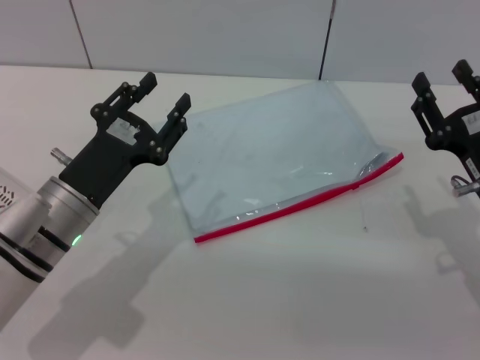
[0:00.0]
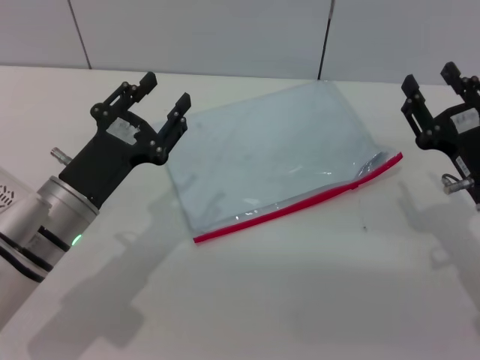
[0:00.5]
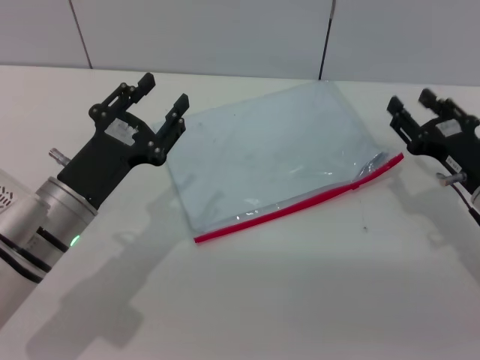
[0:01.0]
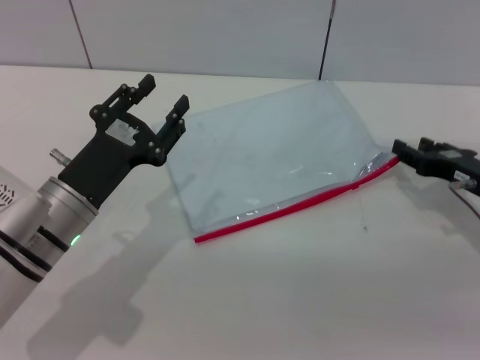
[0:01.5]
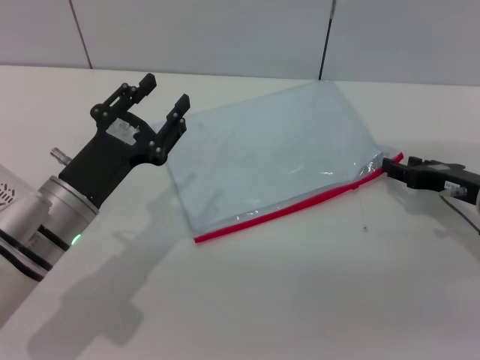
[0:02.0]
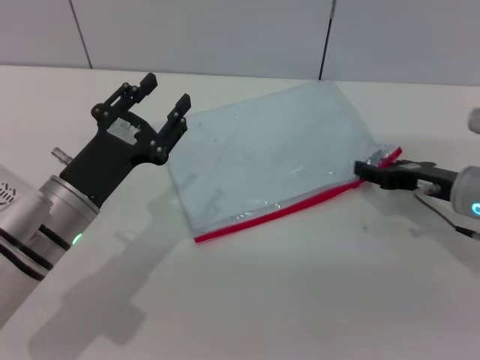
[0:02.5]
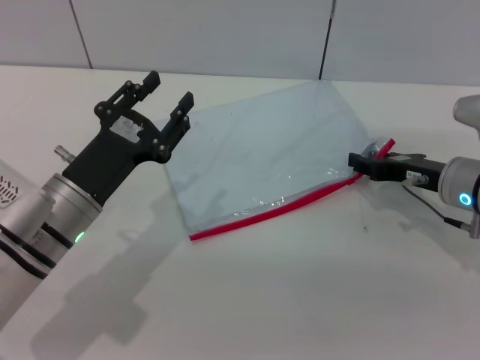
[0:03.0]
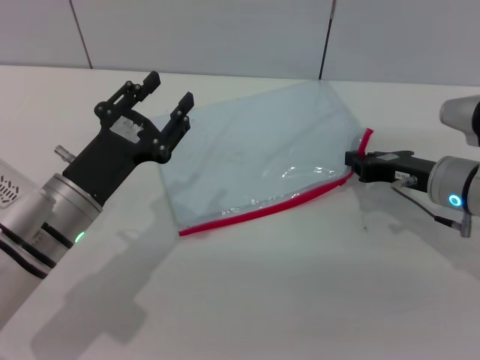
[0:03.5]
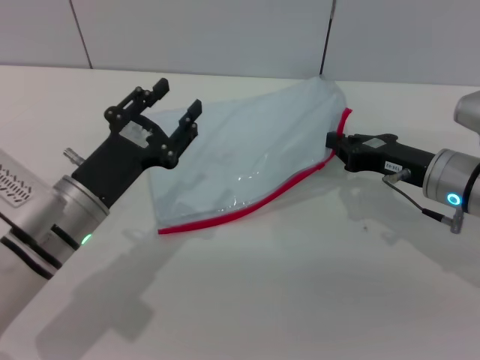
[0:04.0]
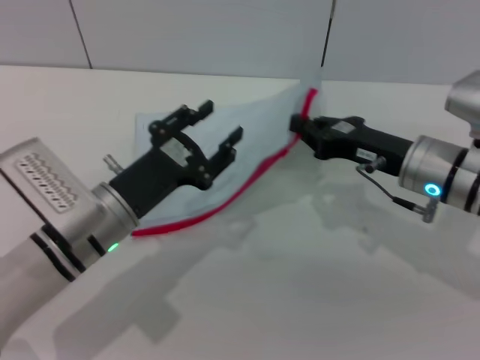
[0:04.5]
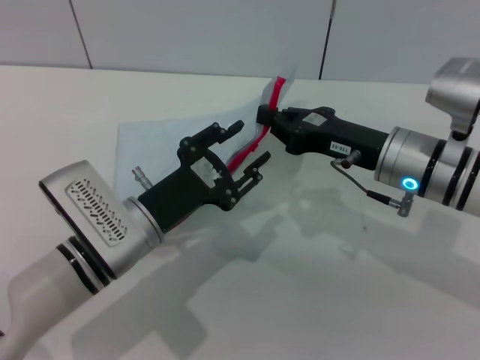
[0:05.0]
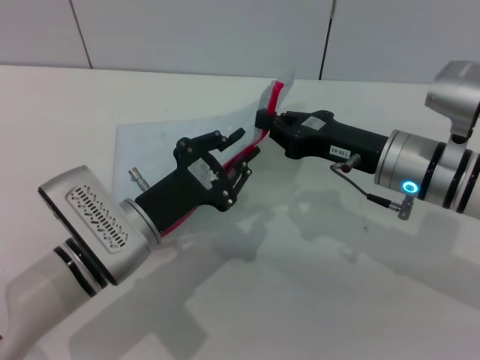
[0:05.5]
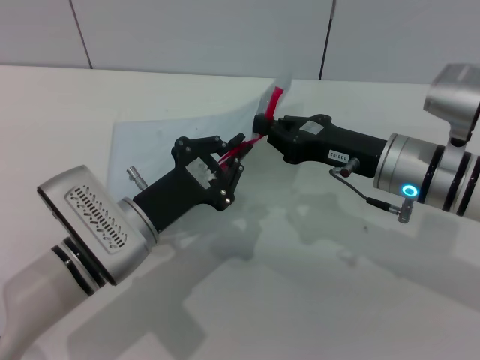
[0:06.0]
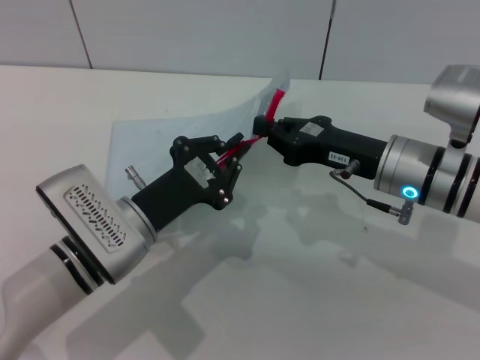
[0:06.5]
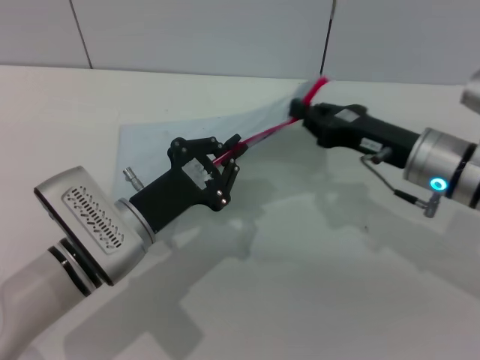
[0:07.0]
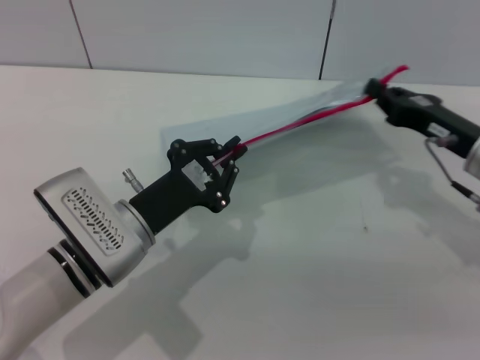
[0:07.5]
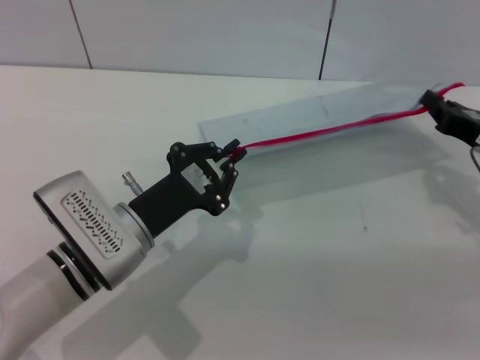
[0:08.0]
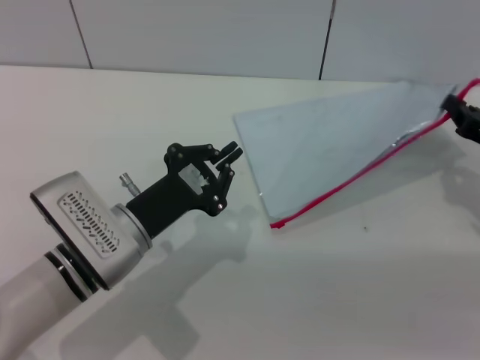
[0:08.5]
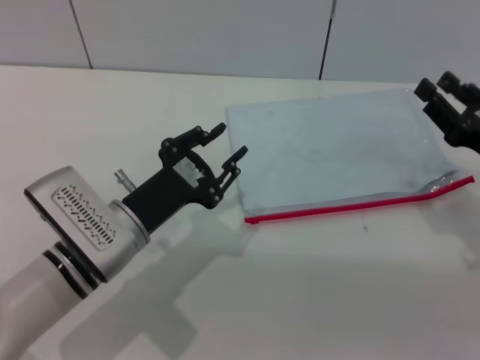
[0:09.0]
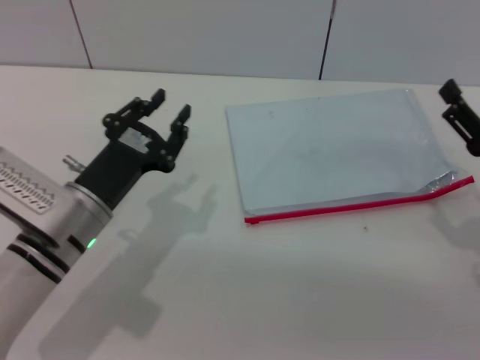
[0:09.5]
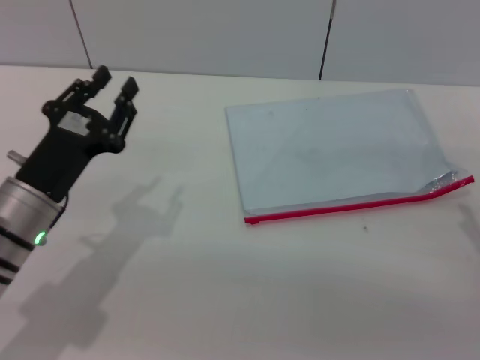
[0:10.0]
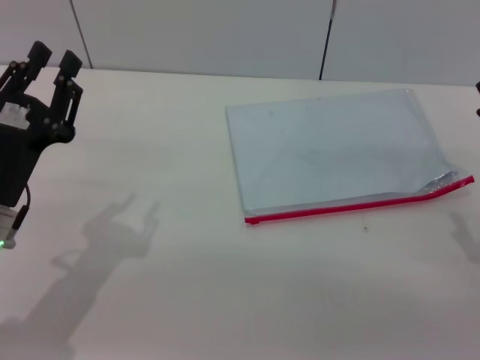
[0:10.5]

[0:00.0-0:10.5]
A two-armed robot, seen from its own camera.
Step, 0:00.0 to 0:04.0: Pick up the transparent plastic bag with the right gripper.
Step, 0:04.5 to 0:08.0: Pulling up the zipper on the transparent plastic bag with the left gripper to close it.
0:00.0 to 0:02.0: The right gripper heads forward, covering about 5 cm.
0:02.0 to 0:04.0: The right gripper shifts approximately 5 cm to the left, and closes up.
0:04.0 to 0:06.5: The left gripper closes, while the right gripper shifts approximately 5 cm to the left.
0:06.5 to 0:08.5: The right gripper shifts approximately 15 cm to the right.
0:08.5 to 0:10.5: The right gripper moves backward, some 10 cm, and opens its fingers. Meanwhile the left gripper travels to the left by about 10 cm, and opens its fingers.

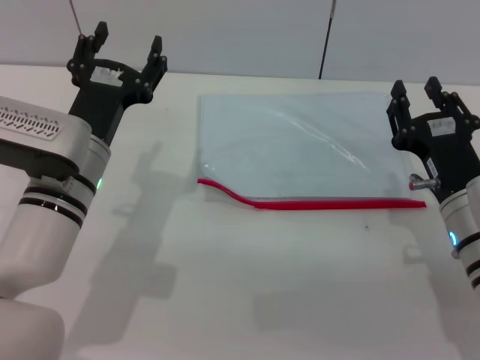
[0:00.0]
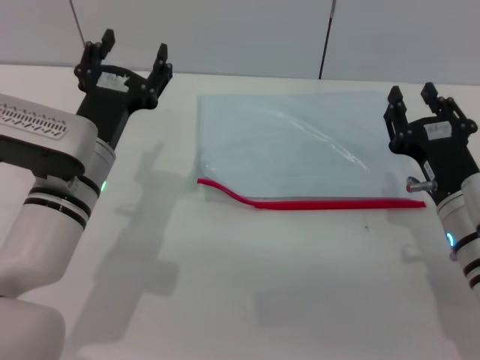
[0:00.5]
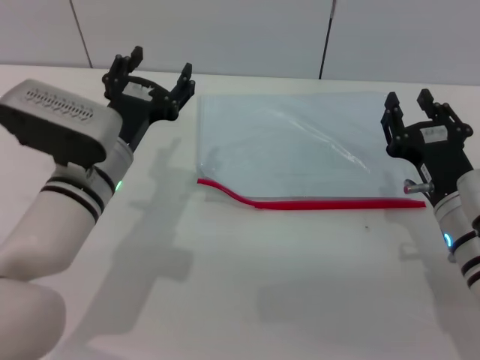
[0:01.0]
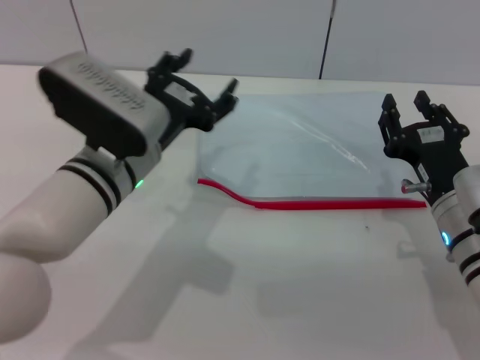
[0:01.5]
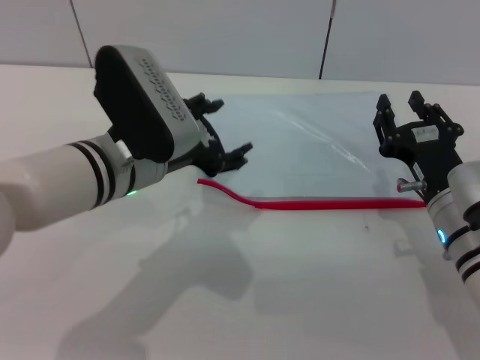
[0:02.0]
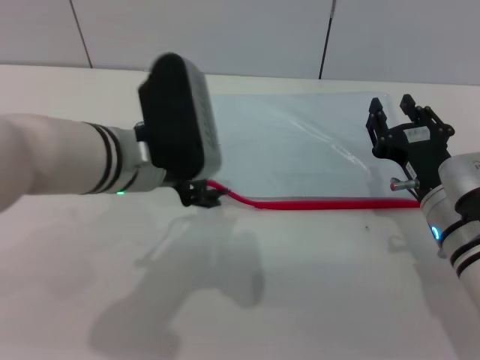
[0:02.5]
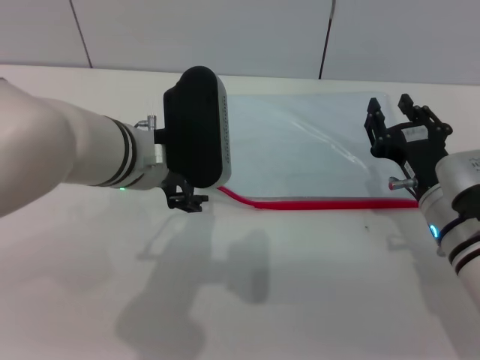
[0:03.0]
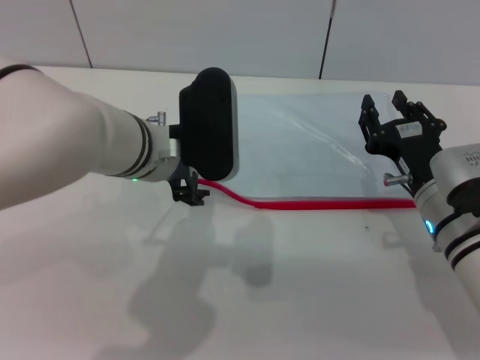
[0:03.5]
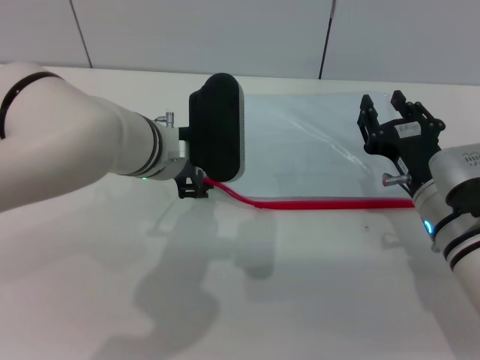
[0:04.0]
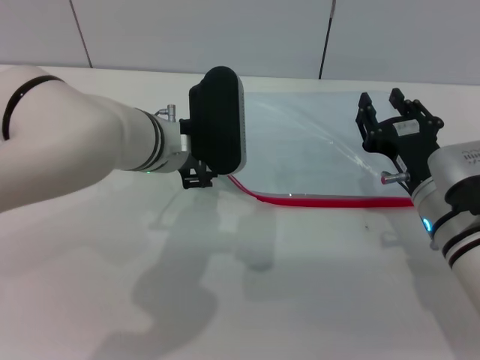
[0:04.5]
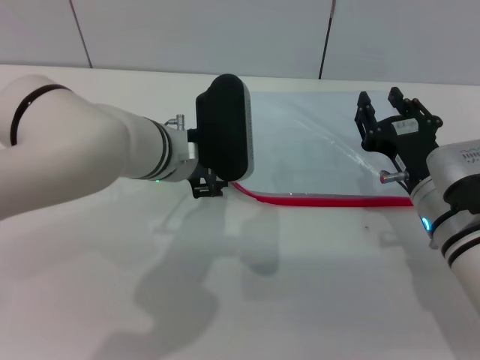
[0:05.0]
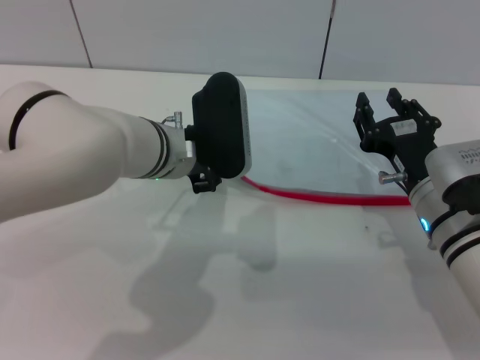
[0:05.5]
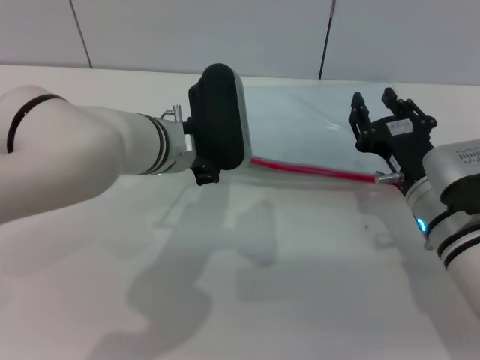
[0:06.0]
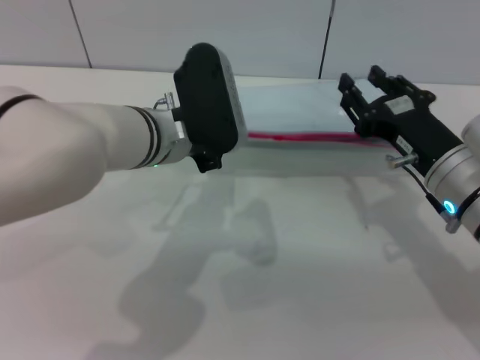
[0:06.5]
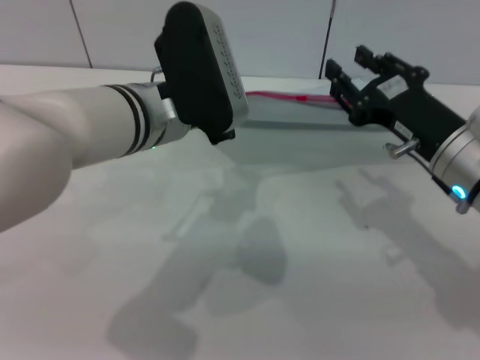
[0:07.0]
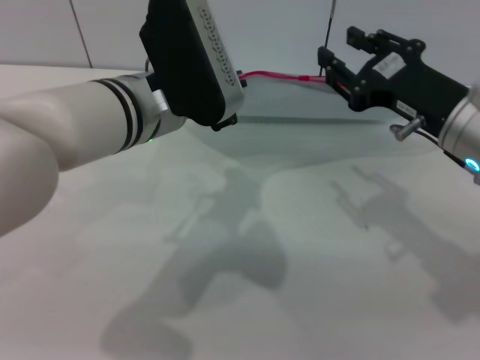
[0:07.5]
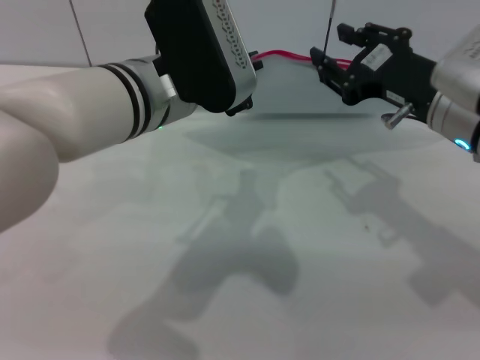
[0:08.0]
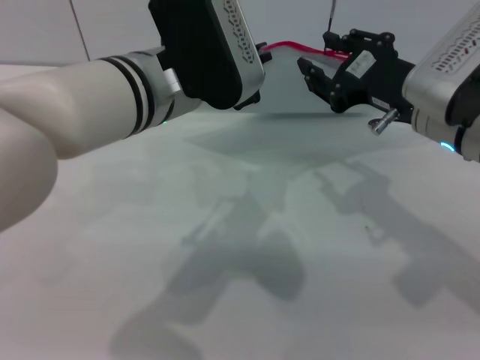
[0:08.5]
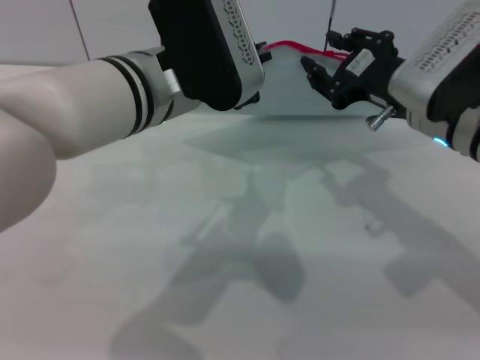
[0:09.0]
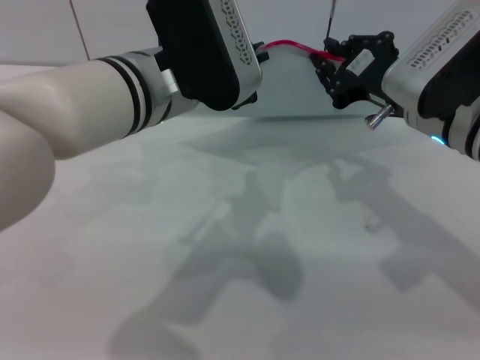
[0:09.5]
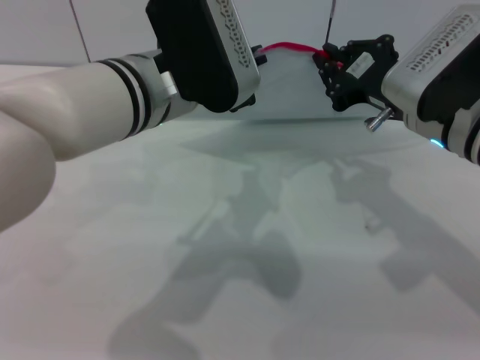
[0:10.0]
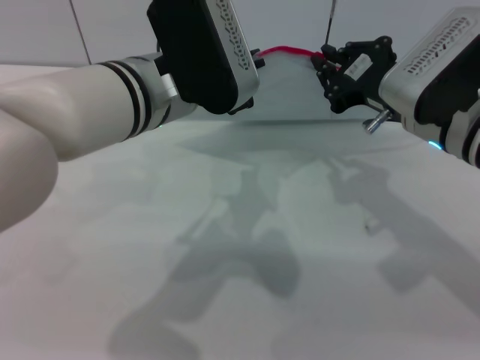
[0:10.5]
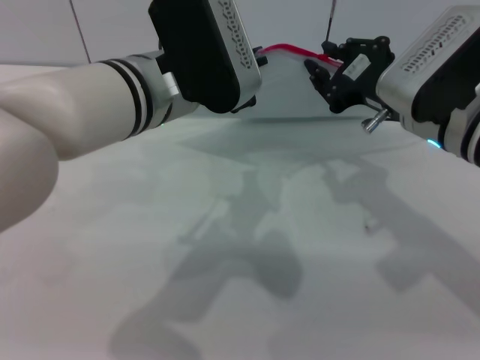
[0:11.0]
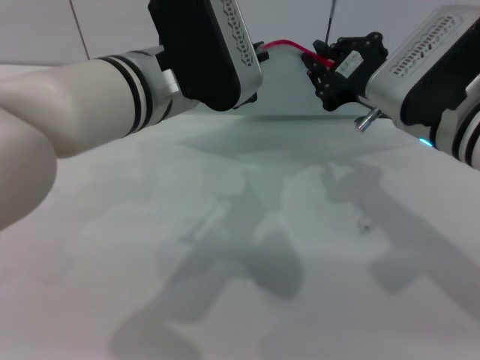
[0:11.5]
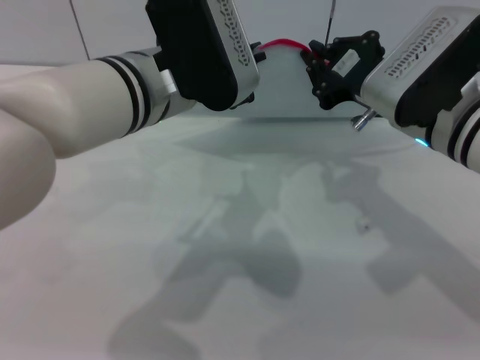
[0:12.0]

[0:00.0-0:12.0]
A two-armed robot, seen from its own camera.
Step, 0:00.0 to 0:06.0: Pick up the transparent plastic bag with the left gripper.
0:00.0 to 0:02.0: The left gripper moves some 5 cm.
0:02.0 to 0:04.0: The left gripper ends up some 5 cm from where it was.
0:04.0 to 0:06.0: The left gripper closes up.
0:06.0 to 0:08.0: Both grippers move upward, about 10 cm.
0:08.0 to 0:10.0: The right gripper closes its fingers.
0:10.0 to 0:12.0: The grippers move only a little.

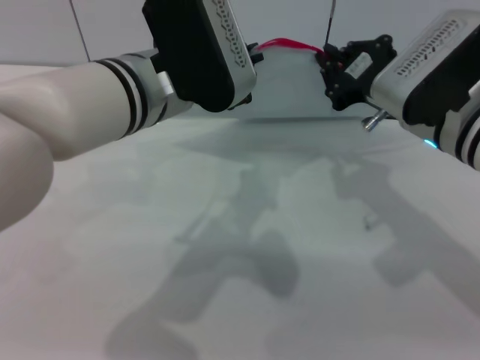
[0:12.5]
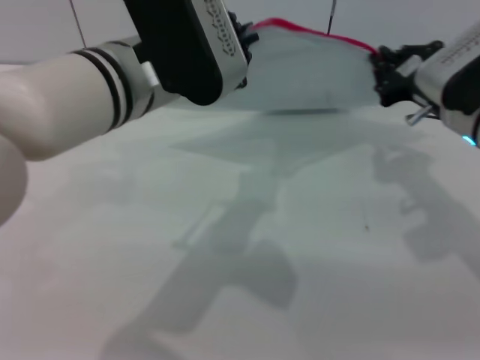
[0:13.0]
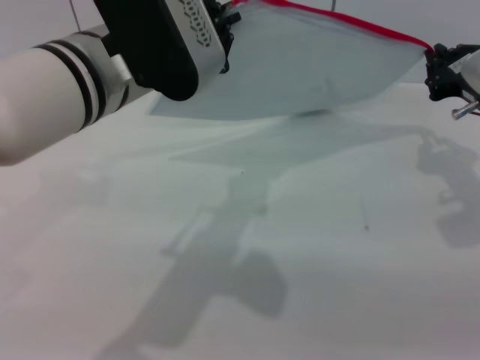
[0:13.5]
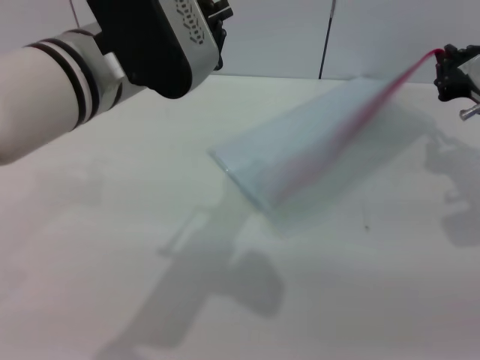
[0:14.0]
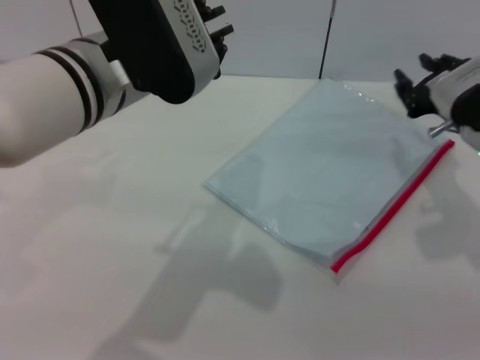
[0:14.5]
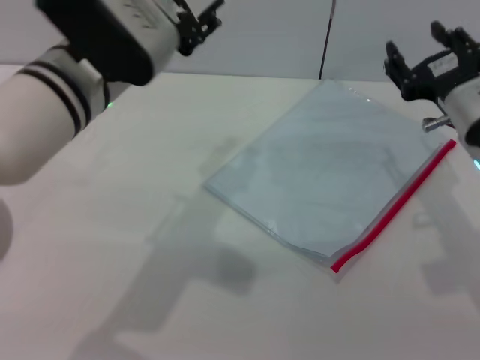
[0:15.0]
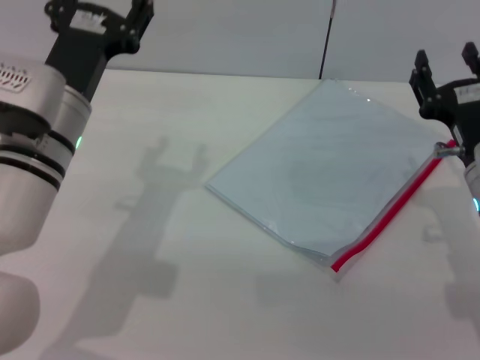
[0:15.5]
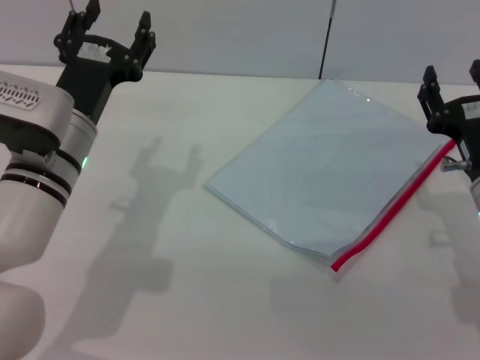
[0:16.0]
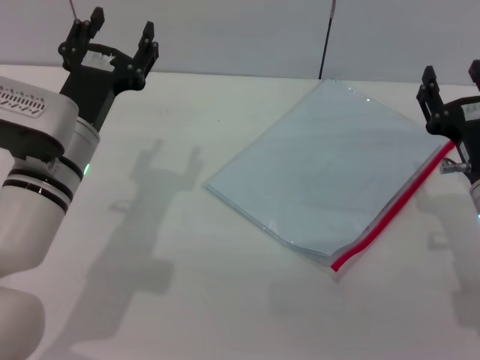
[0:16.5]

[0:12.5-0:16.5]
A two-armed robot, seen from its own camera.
Step, 0:14.5 to 0:15.0: Place the transparent plastic bag.
0:12.5 to 0:14.5: The right gripper travels to the right by some 5 cm.
0:14.5 to 0:16.5: The right gripper shifts some 5 cm backward, and opens up; the left gripper heads downward and to the left, covering approximately 15 cm, and opens its fingers.
